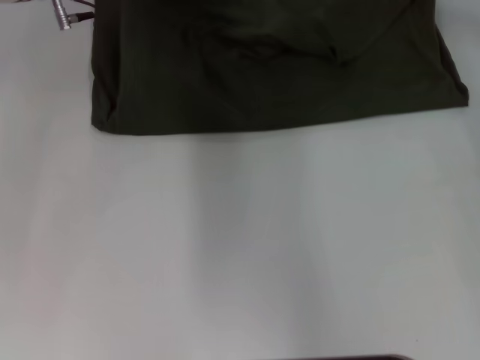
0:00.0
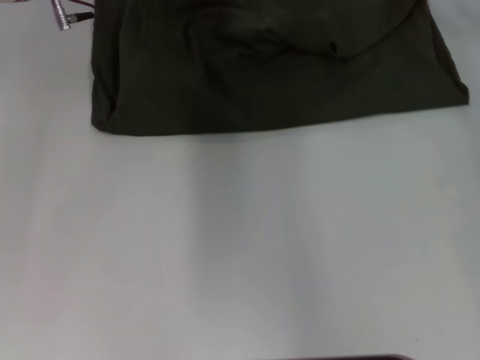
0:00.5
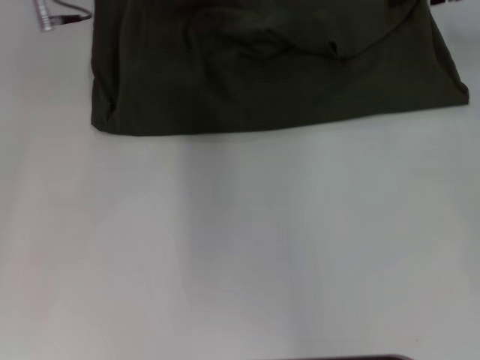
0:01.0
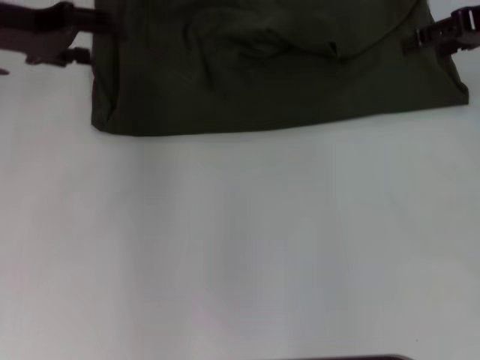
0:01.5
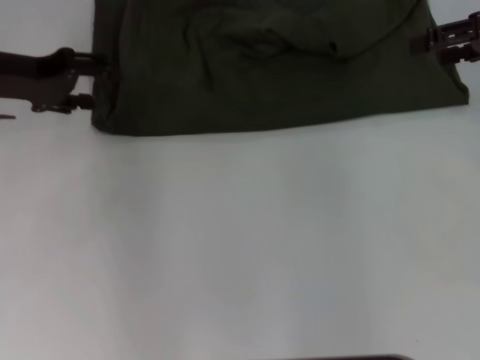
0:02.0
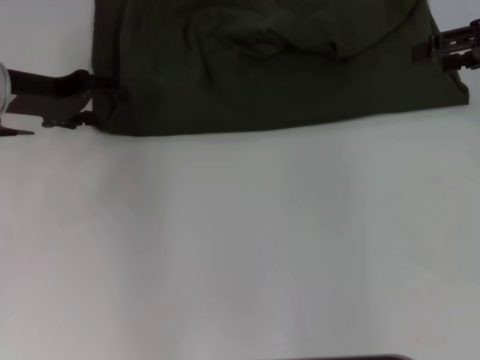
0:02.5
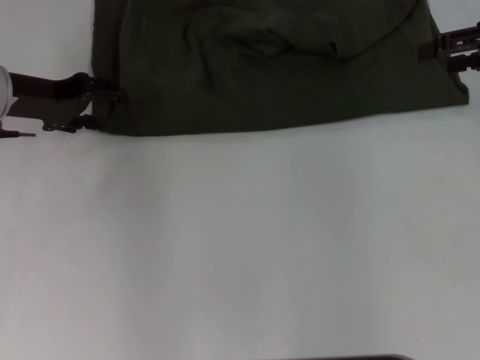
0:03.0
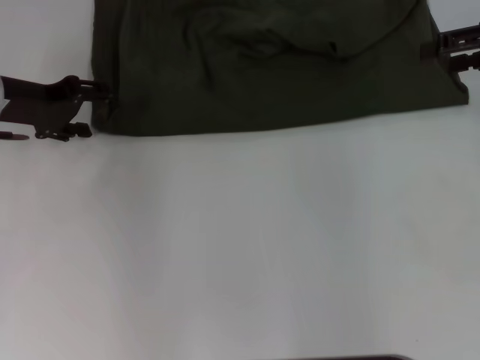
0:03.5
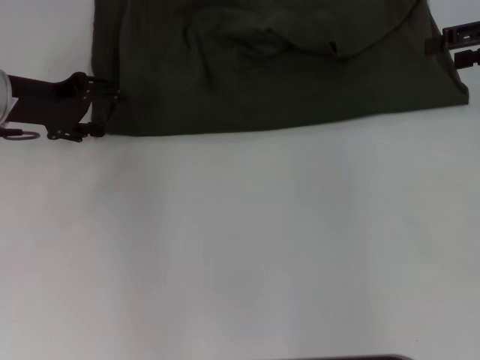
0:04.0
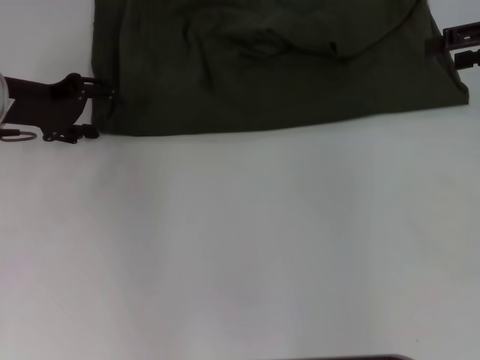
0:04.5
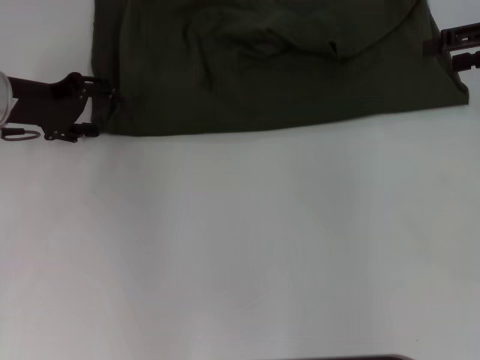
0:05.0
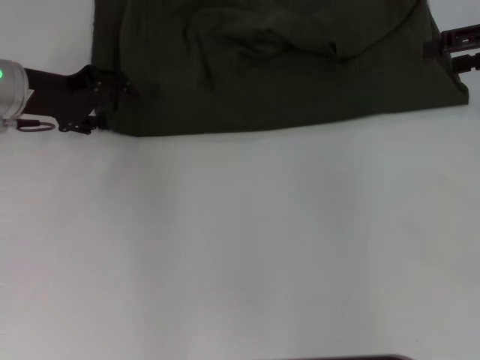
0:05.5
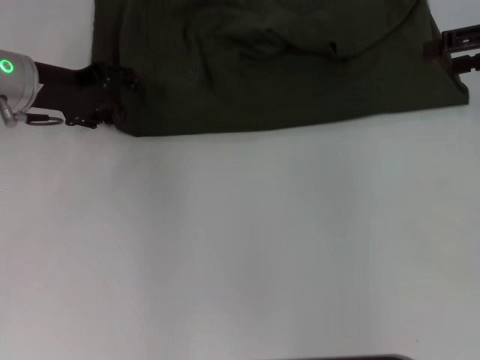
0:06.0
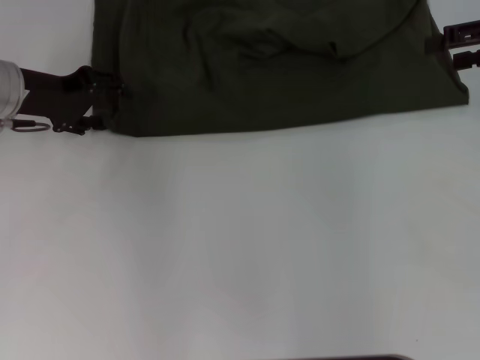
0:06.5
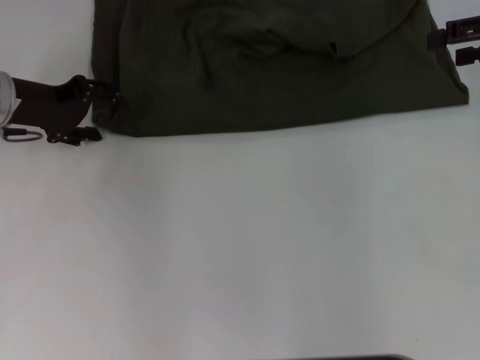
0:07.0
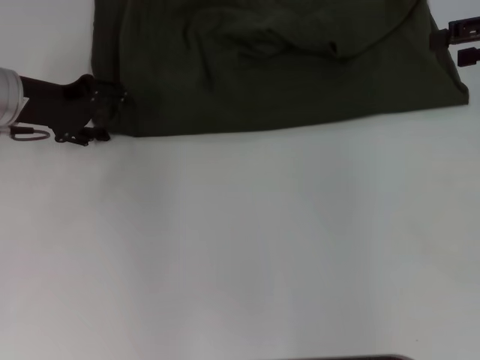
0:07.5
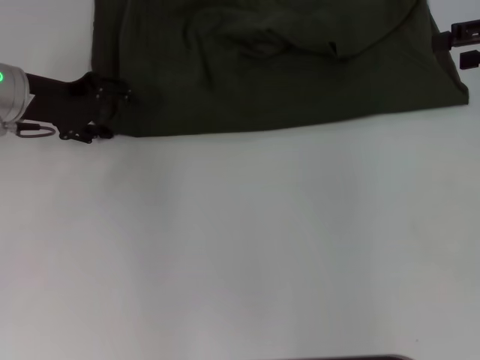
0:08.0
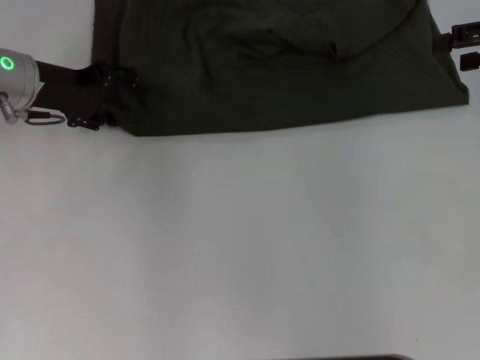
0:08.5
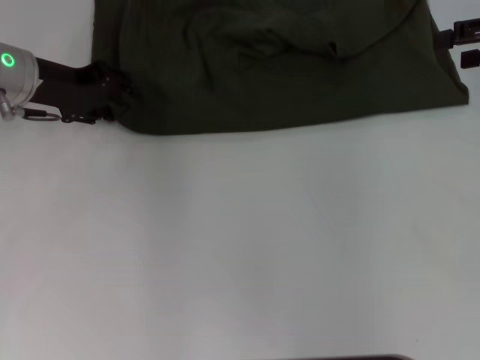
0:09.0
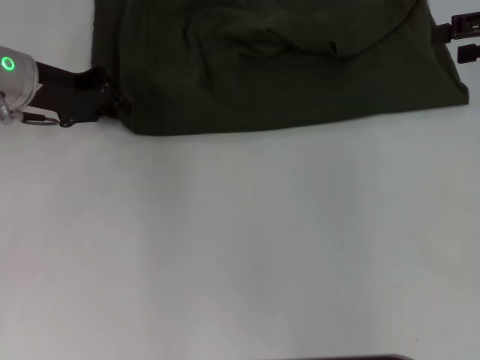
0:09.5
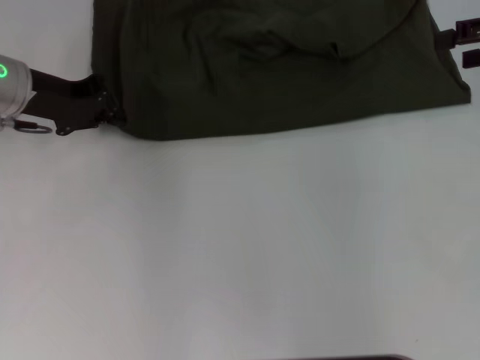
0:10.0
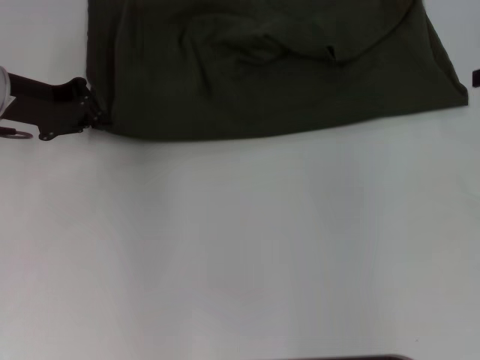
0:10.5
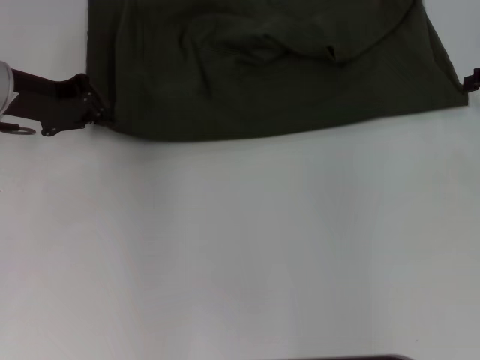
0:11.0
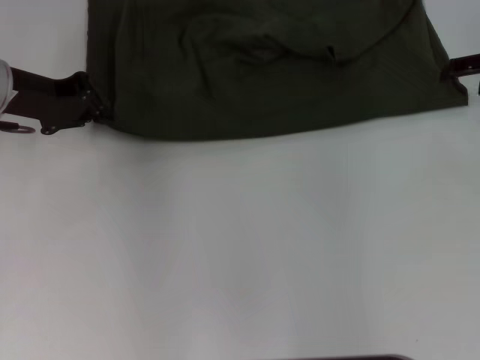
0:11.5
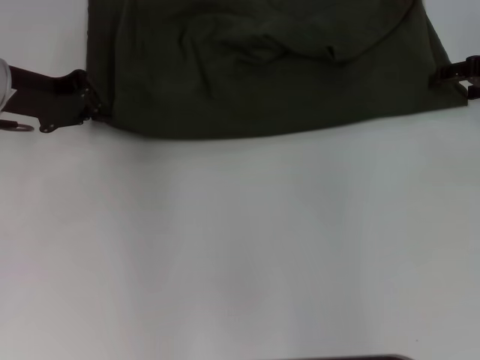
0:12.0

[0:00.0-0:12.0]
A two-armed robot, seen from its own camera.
0:00.0 to 0:02.0: The left gripper is displaced to the left and backward by roughly 15 cm, and opens its fingers. The right gripper moves backward and to the right, roughly 10 cm, and opens its fingers.
0:02.0 to 0:08.0: The grippers make only small movements.
0:08.0 to 0:10.0: The left gripper closes its fingers.
0:10.0 to 0:12.0: The right gripper is displaced downward by some 5 cm.

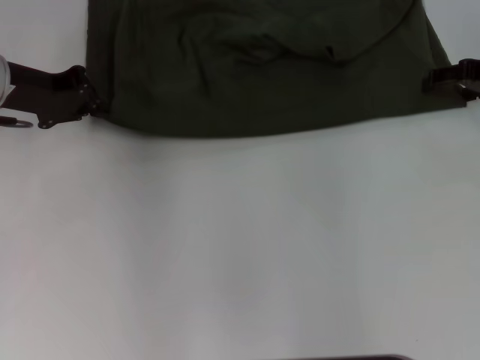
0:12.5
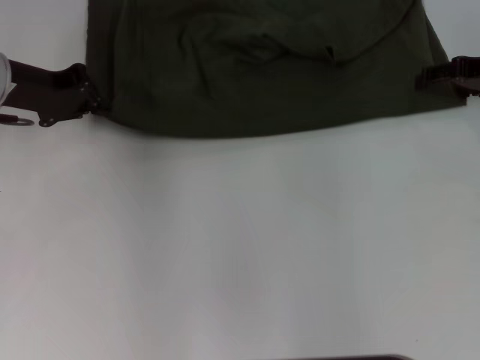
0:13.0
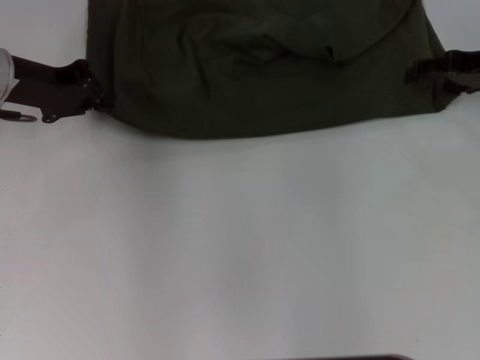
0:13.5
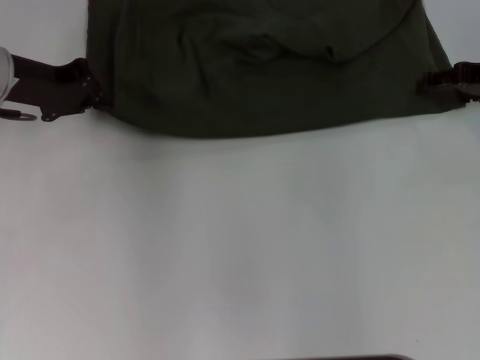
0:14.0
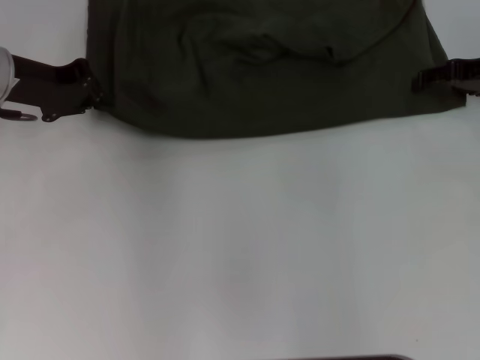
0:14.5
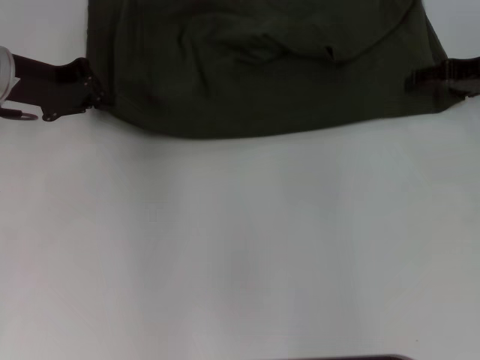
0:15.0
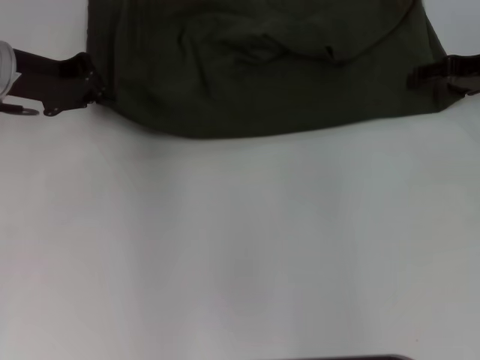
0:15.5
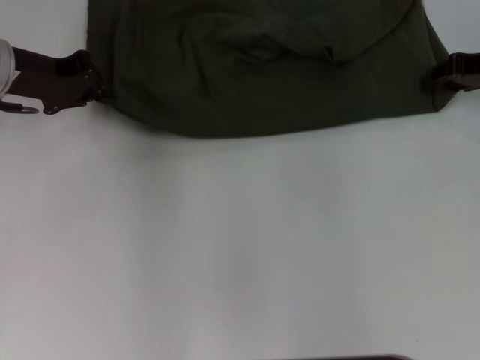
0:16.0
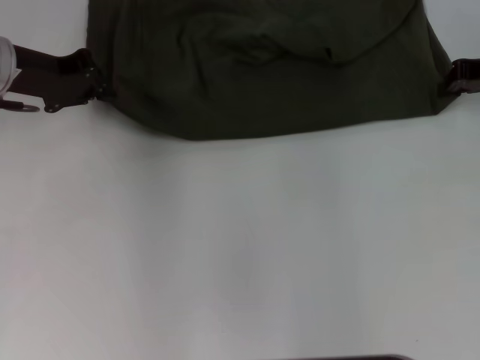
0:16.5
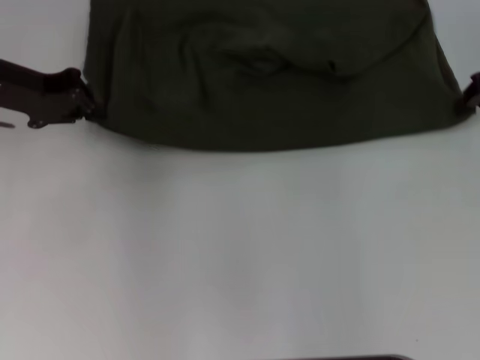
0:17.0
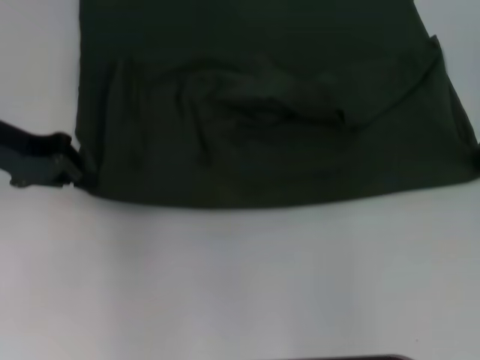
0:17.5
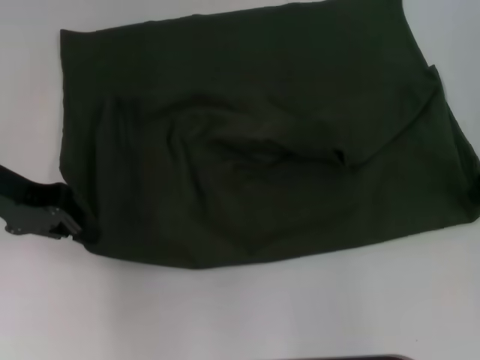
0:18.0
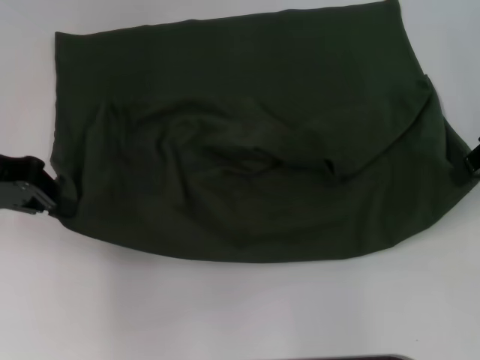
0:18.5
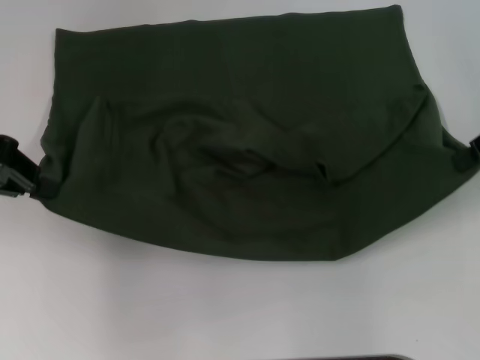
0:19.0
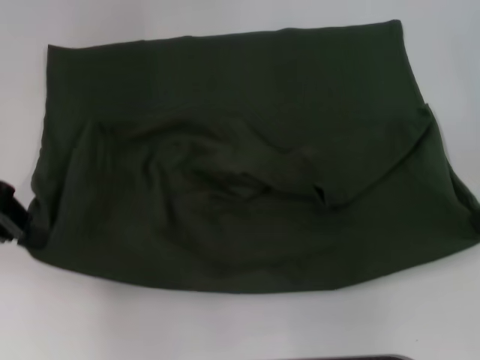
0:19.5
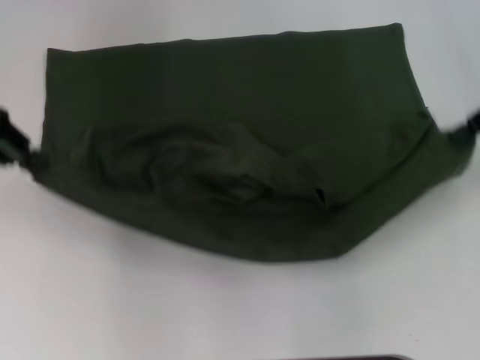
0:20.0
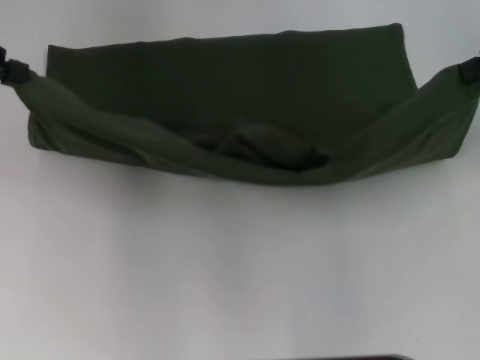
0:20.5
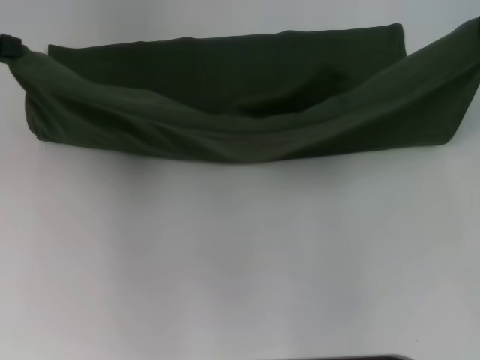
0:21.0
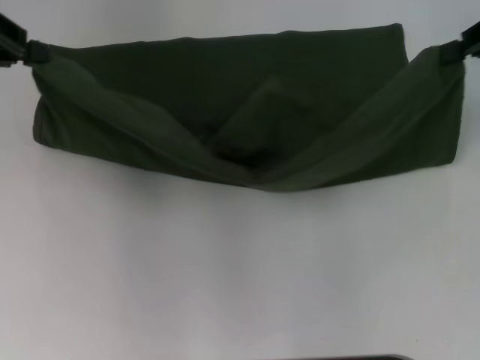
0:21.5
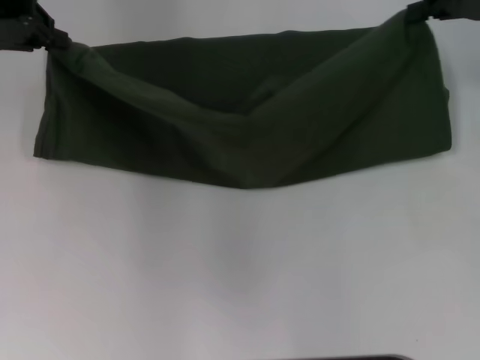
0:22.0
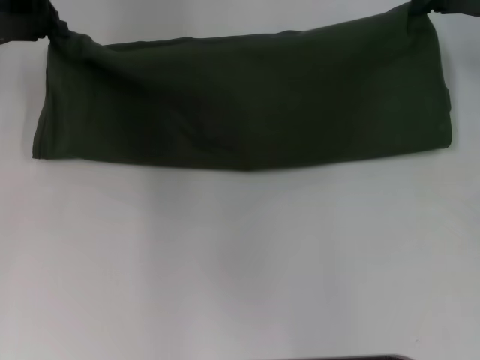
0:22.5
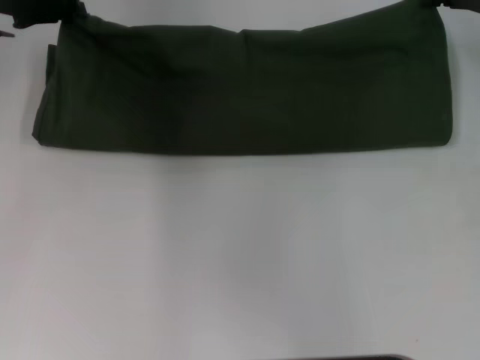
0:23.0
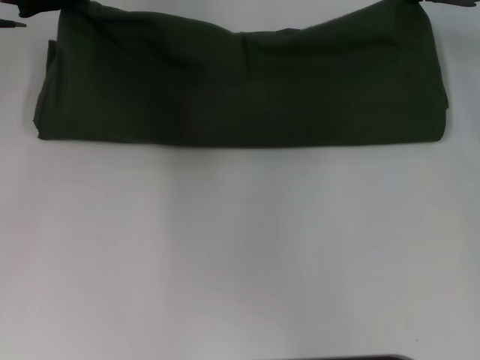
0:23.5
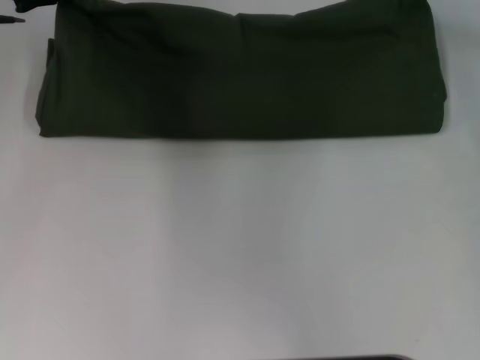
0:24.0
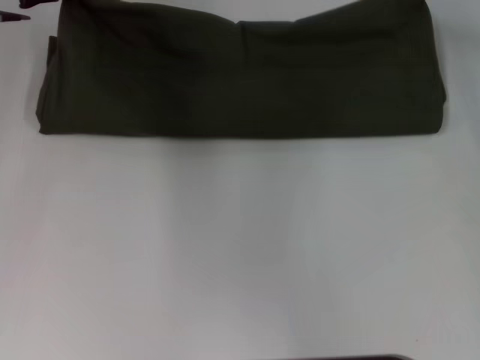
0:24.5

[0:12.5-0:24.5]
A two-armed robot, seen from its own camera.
Step, 0:12.5 to 0:18.0: Pull the clothes with your left hand.
Step, 0:12.5 to 0:18.0: Pull the clothes with your right hand.
0:12.5 to 0:14.5: The grippers move only a little.
0:14.5 to 0:16.5: The right gripper closes up.
0:16.5 to 0:18.5: The left gripper goes about 10 cm backward. Meanwhile the right gripper goes about 10 cm backward and upward.
0:18.5 to 0:20.5: Both grippers travel together upward, approximately 5 cm.
0:20.5 to 0:22.5: The left gripper shifts some 10 cm forward, to the right and downward. The right gripper is displaced downward and forward by approximately 10 cm.
0:22.5 to 0:24.5: The left gripper changes place by approximately 5 cm.

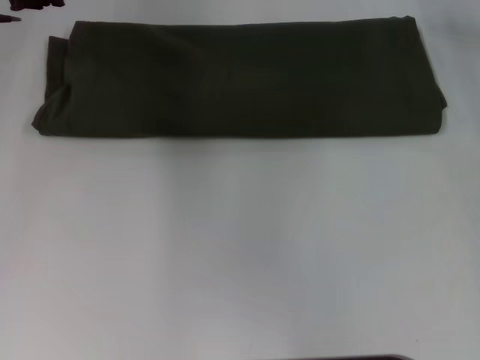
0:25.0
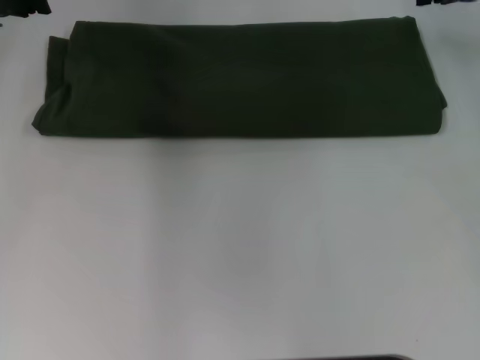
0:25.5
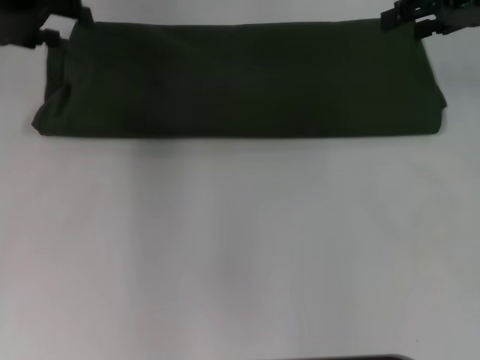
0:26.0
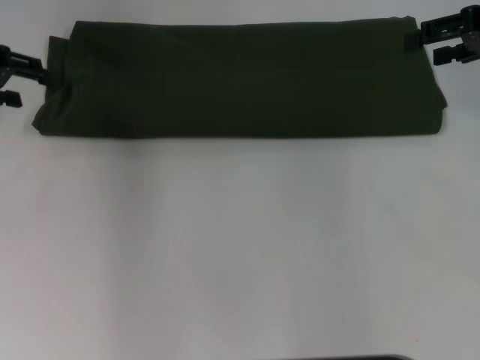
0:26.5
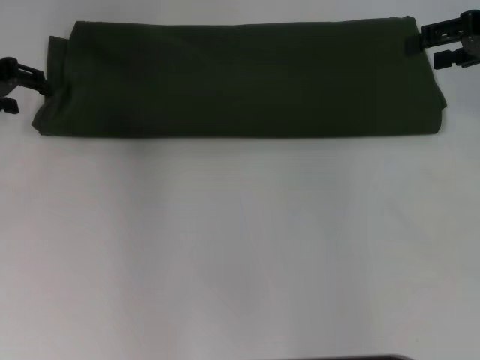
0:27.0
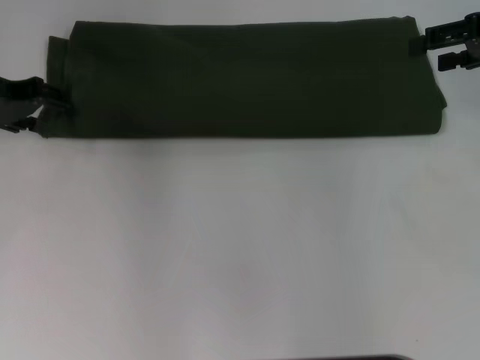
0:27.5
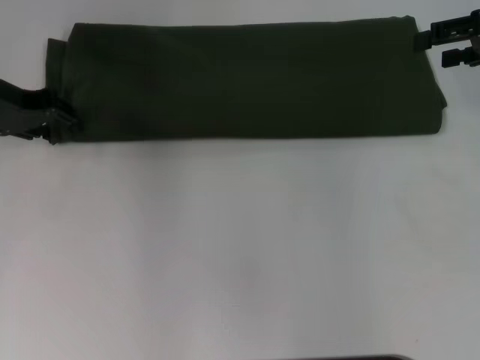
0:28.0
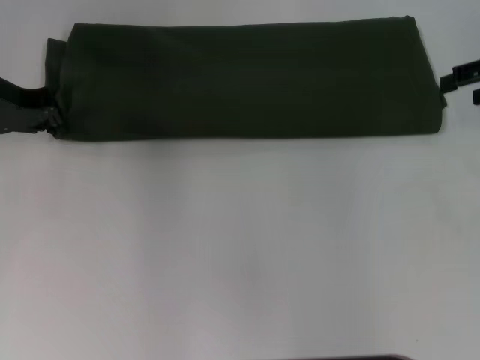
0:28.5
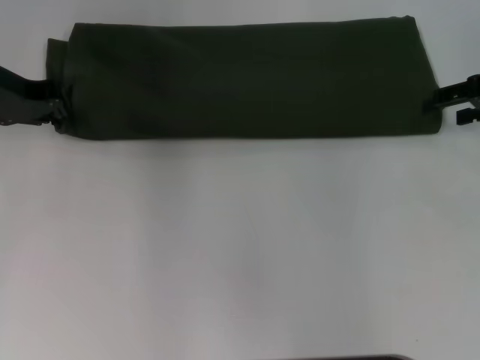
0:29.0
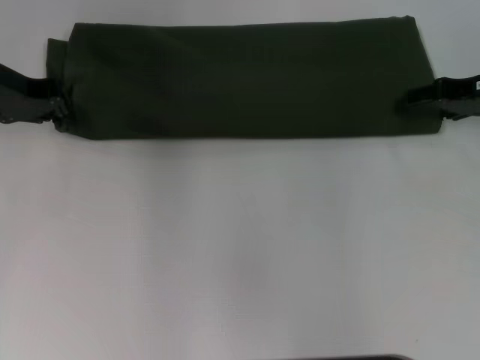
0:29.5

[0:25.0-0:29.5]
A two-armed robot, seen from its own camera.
0:25.0 to 0:27.0: The right gripper heads backward, covering about 5 cm, and opens up, while the left gripper goes some 10 cm to the left and backward, and opens.
0:27.0 to 0:29.5: The right gripper shifts some 5 cm downward. Meanwhile the left gripper closes up.
